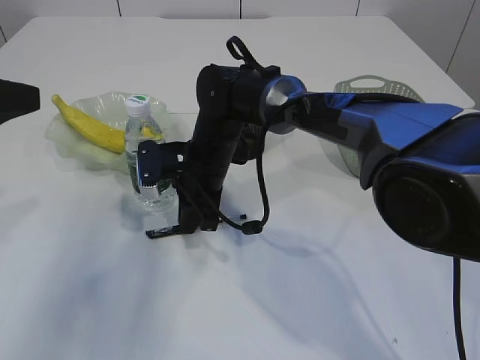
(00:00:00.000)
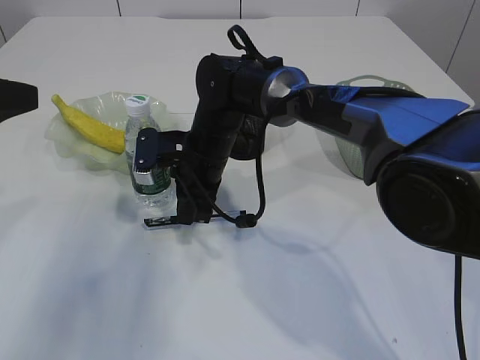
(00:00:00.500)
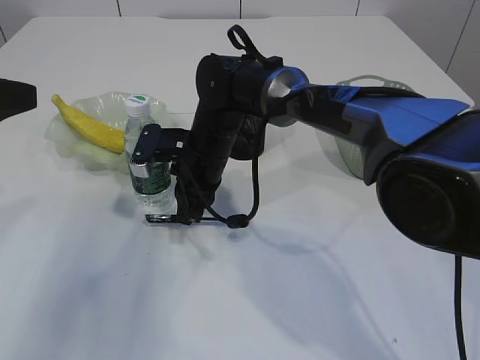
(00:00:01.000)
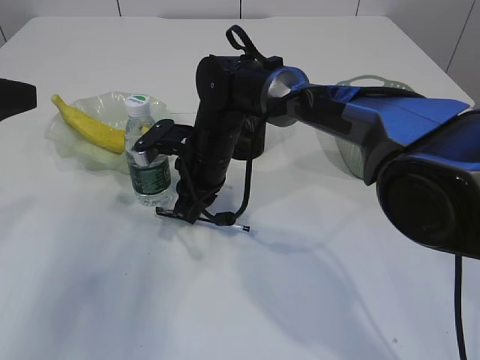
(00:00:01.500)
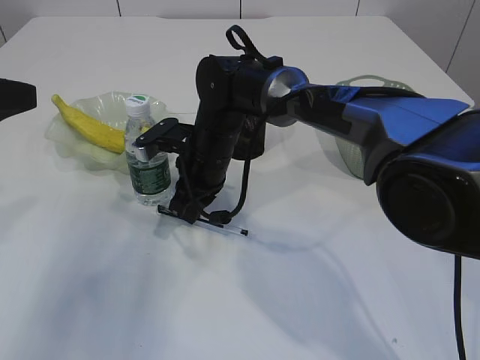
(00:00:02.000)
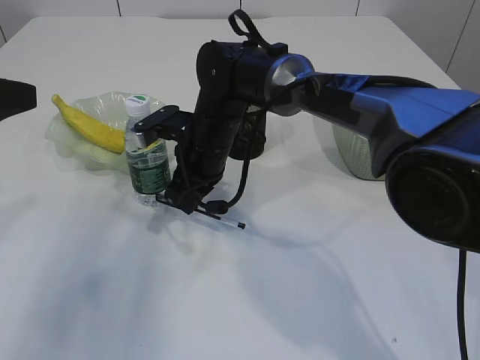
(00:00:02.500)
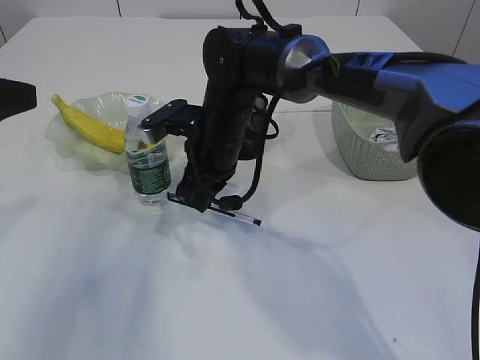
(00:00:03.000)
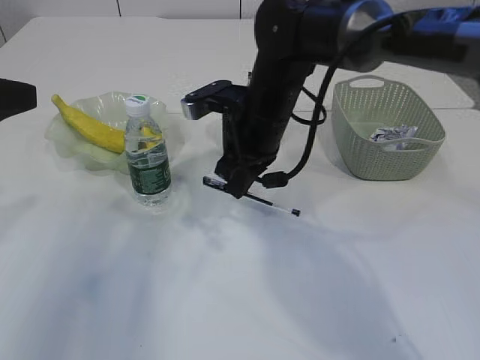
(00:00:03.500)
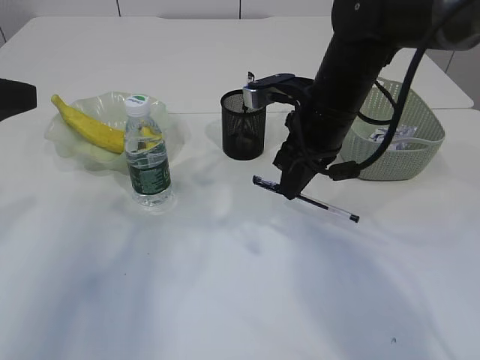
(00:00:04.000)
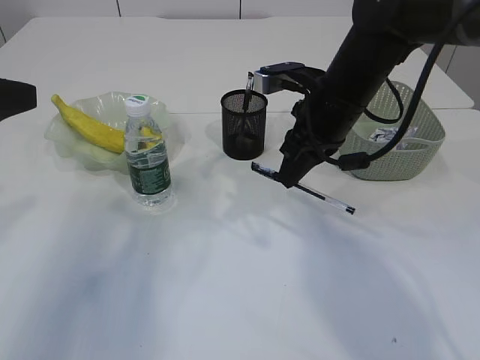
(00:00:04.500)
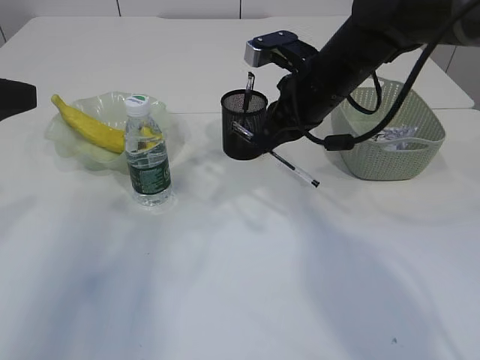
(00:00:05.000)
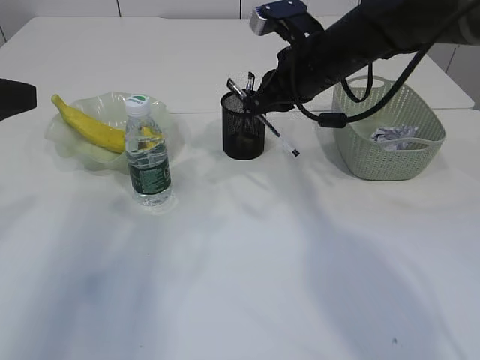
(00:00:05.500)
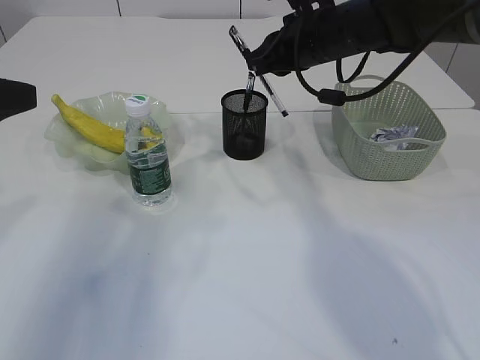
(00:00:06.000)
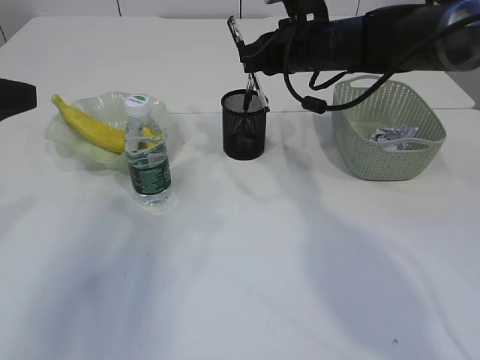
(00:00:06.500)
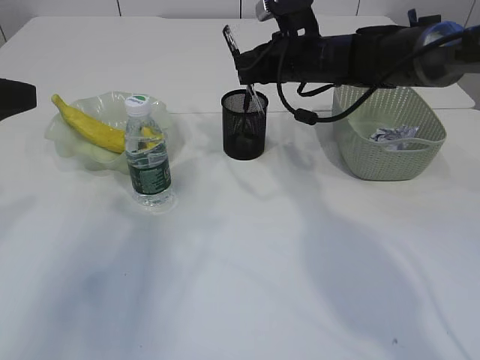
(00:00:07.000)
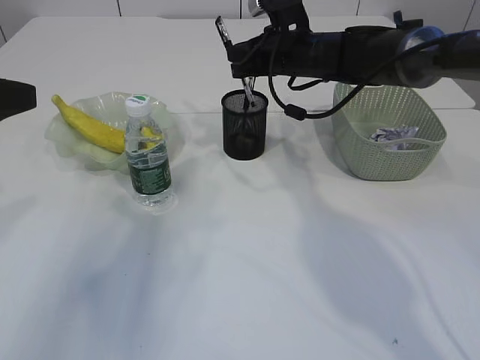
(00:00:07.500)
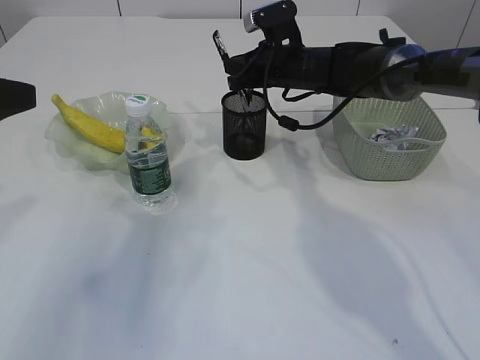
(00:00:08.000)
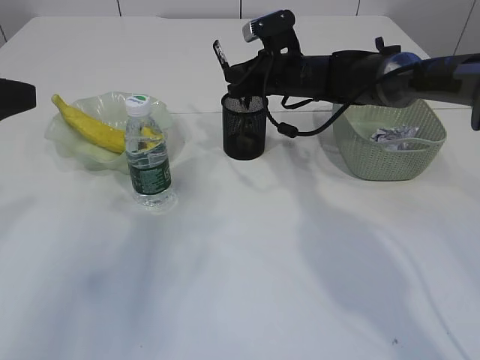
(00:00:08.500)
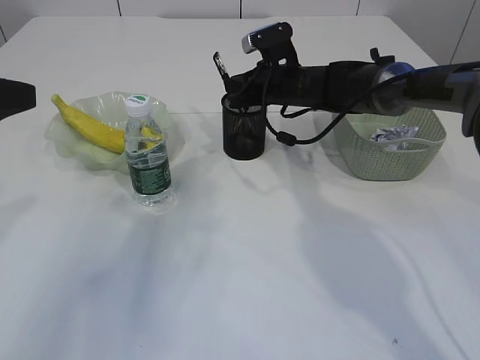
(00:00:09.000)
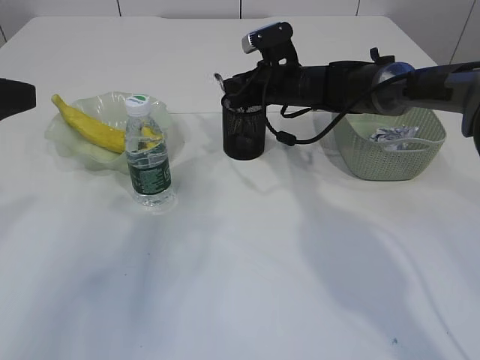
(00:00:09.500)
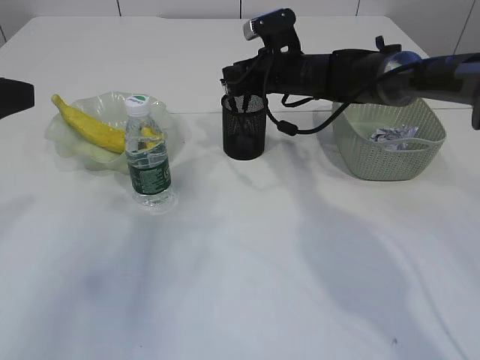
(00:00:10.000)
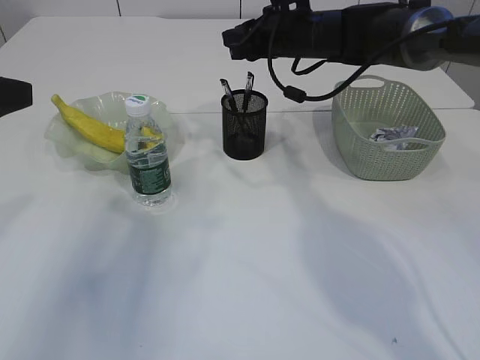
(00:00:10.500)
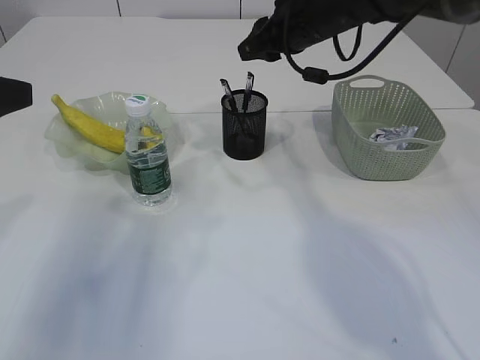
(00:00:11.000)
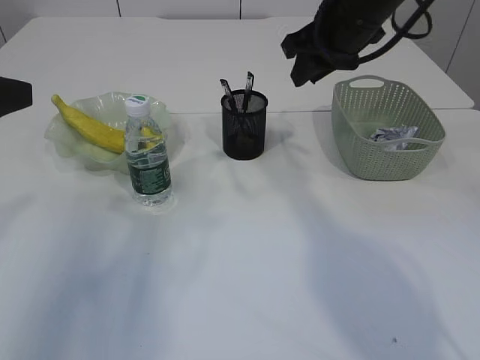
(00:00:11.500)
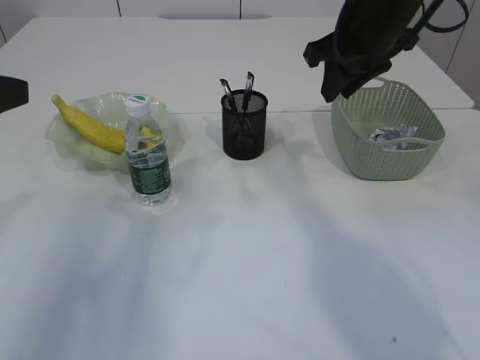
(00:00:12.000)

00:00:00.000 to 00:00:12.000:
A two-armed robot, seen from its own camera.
Step, 00:00:00.000 to 00:00:03.000: Pick up the pen with right arm.
Step, 00:00:03.500 to 00:00:10.500: Place the pen into the pen holder.
00:00:02.000 to 00:00:04.000: The right gripper goes approximately 15 cm to the right and upward.
00:00:04.000 to 00:00:06.000: The right gripper is displaced forward by approximately 5 cm.
00:00:06.000 to 00:00:08.000: The right gripper shifts roughly 10 cm forward and downward.
00:00:08.000 to 00:00:10.000: The grippers make only small movements.
00:00:10.000 to 00:00:12.000: The right gripper travels upward, backward and to the right by approximately 20 cm.

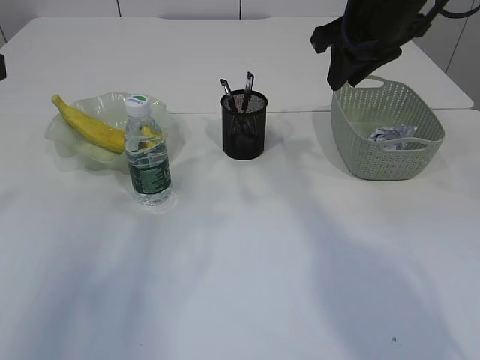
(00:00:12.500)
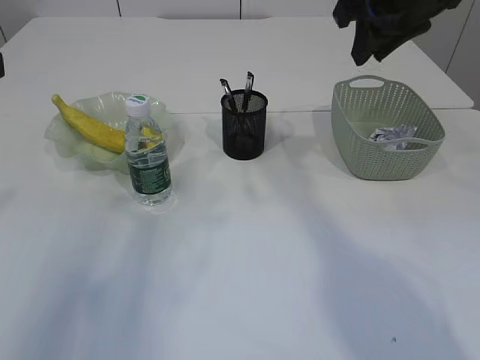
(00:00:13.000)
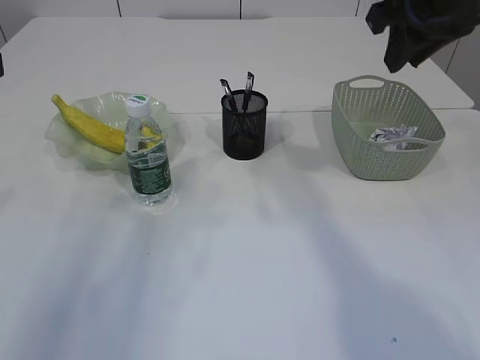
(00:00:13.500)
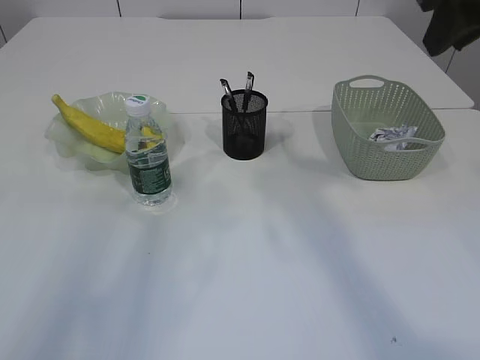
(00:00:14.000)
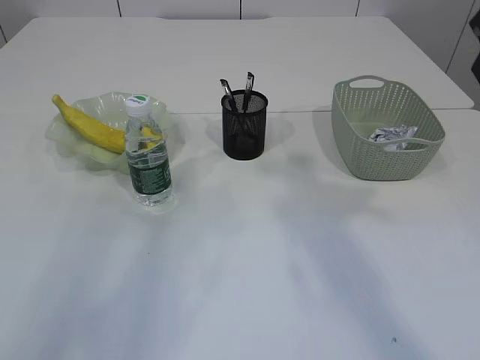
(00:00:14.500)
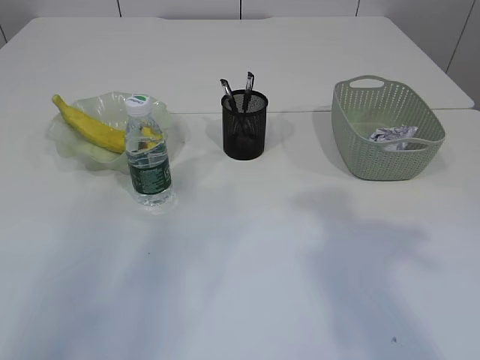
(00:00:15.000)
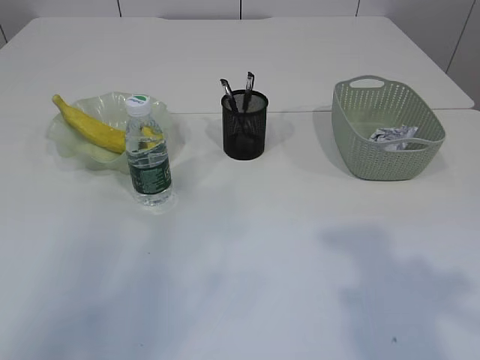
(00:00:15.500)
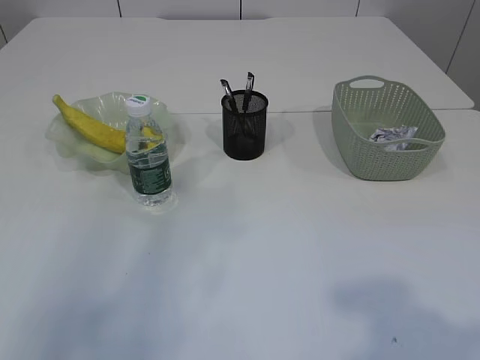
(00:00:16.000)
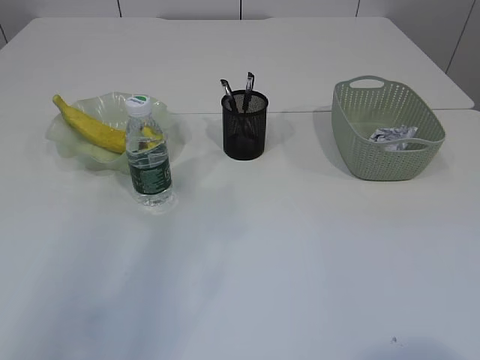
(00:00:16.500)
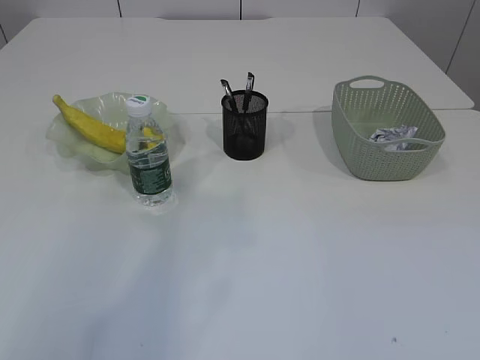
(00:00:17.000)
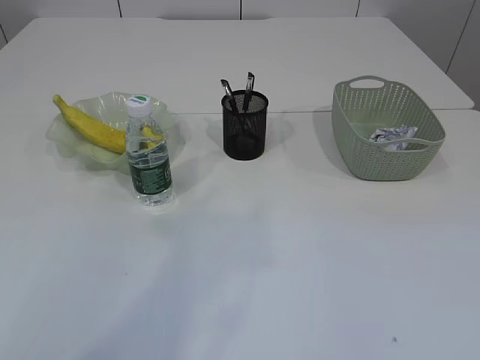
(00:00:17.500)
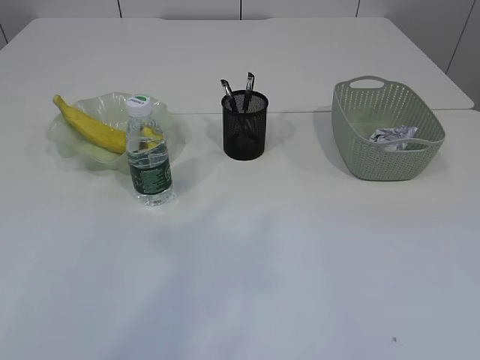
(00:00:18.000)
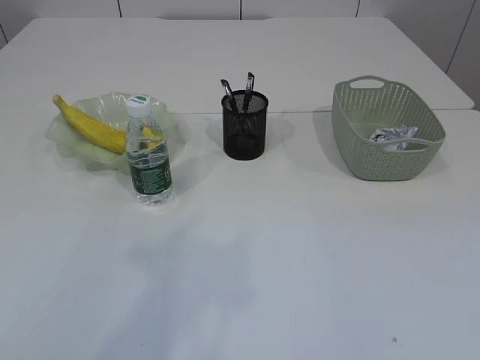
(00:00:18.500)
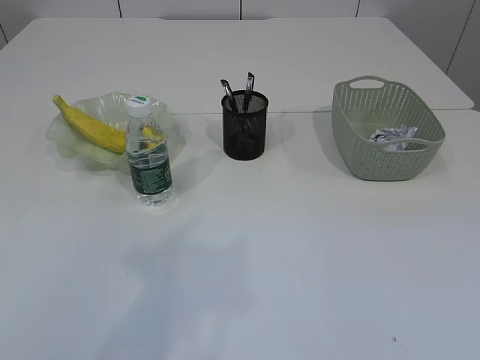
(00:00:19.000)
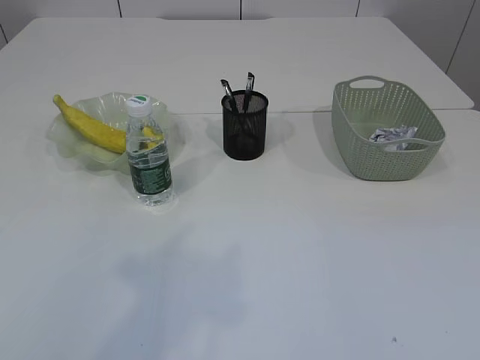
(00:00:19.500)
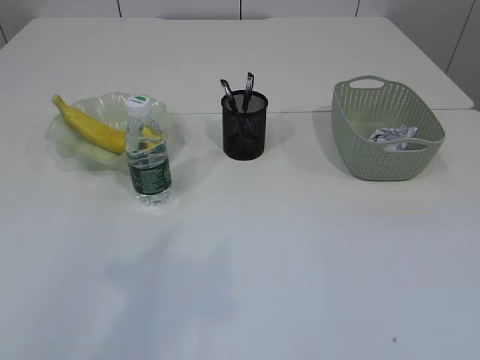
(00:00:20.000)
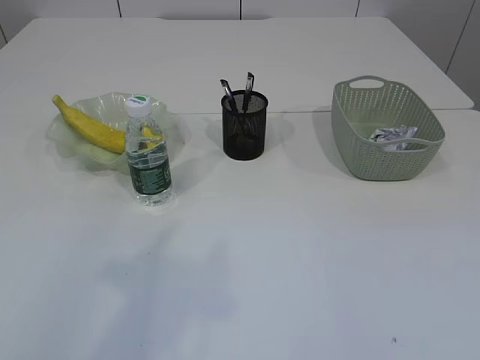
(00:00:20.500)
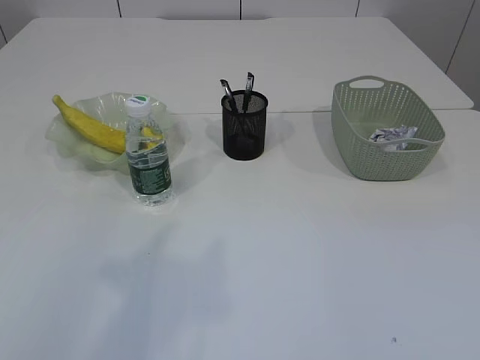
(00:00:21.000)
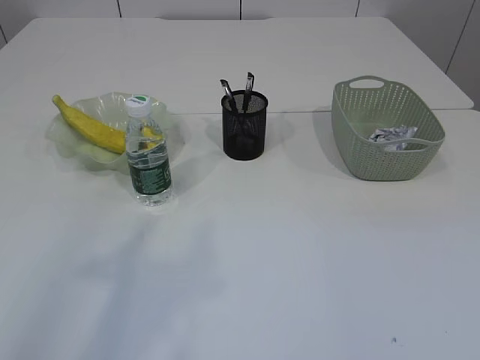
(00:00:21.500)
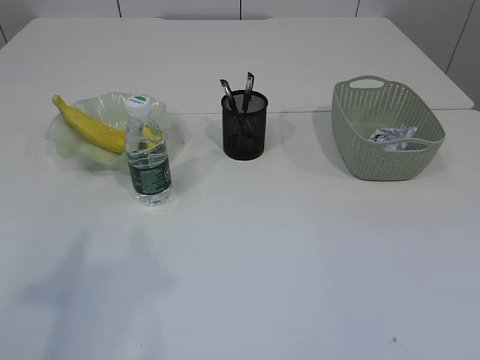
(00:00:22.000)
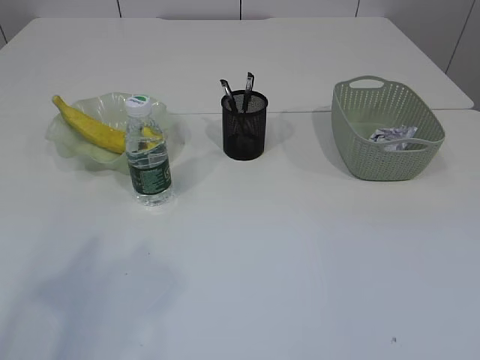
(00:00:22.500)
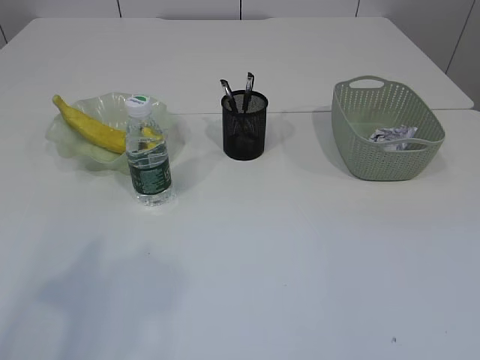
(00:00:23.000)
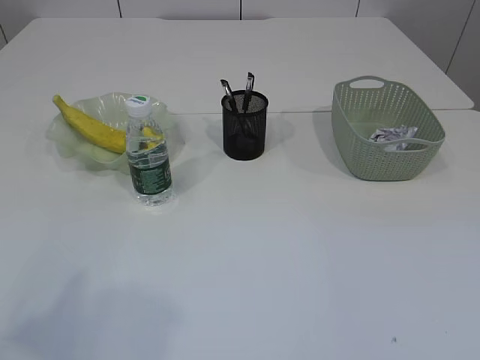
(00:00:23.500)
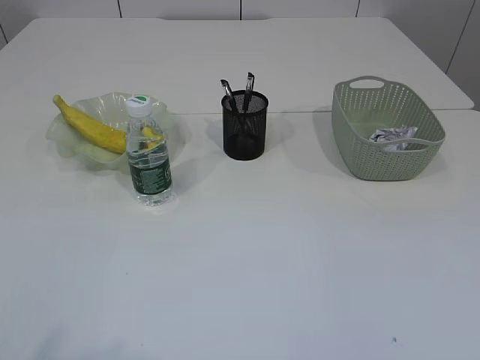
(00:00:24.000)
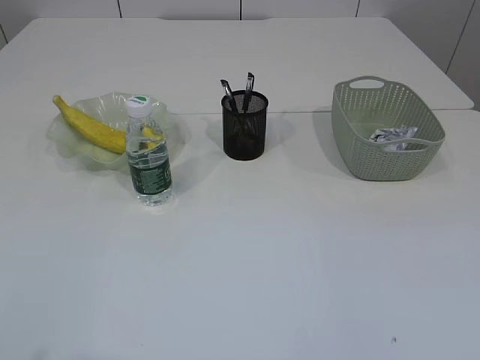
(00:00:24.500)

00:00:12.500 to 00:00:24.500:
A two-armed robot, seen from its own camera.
00:00:12.500 to 00:00:14.500: The right gripper moves backward and upward, roughly 15 cm.
00:00:22.500 to 00:00:24.500: The left gripper moves backward, some 10 cm.

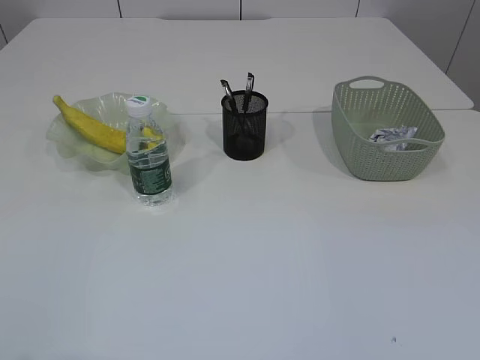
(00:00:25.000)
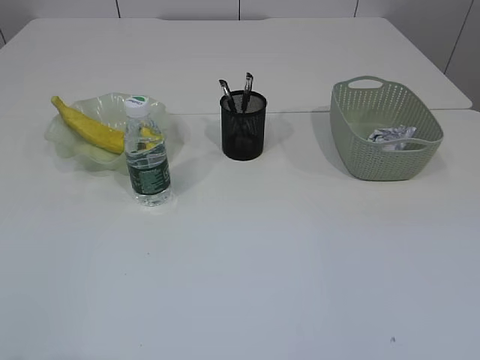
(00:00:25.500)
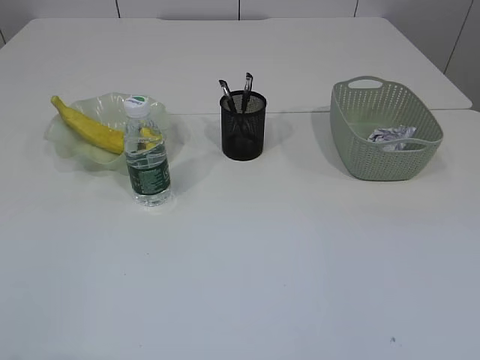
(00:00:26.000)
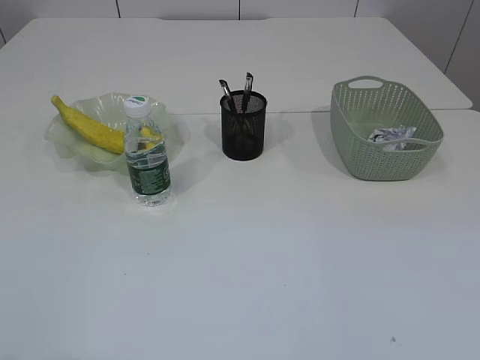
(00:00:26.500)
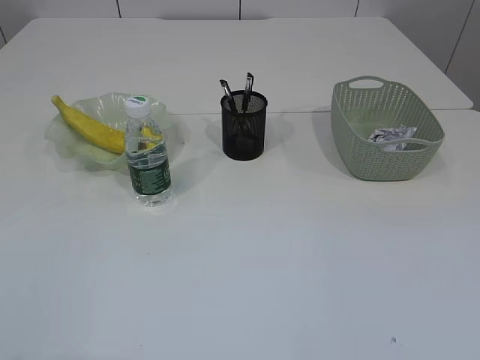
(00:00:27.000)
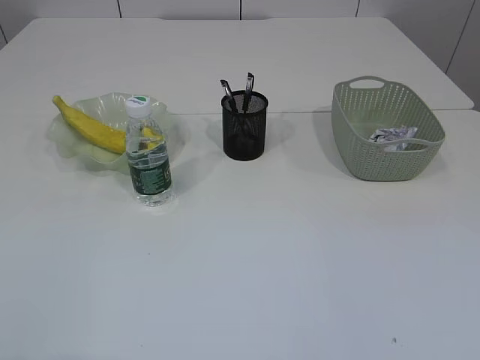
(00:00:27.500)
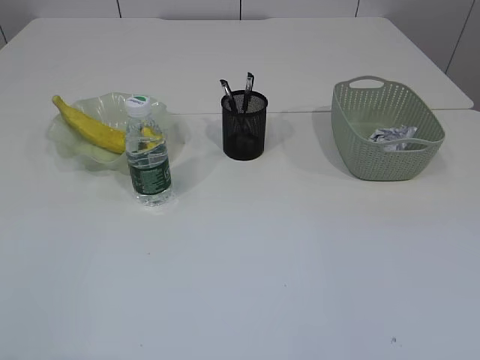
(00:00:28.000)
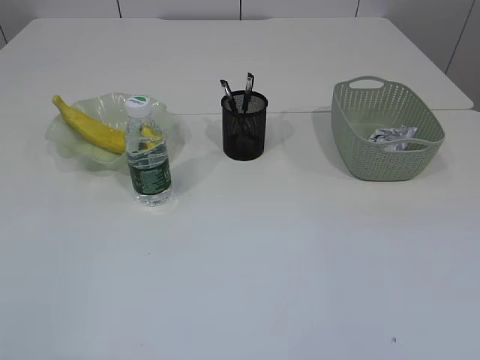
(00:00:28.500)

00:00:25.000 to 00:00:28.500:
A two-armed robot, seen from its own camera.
00:00:27.000 to 00:00:28.500: Neither gripper changes place.
